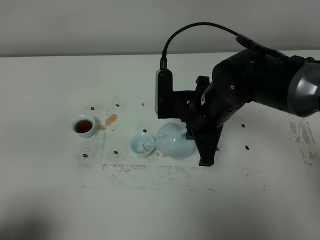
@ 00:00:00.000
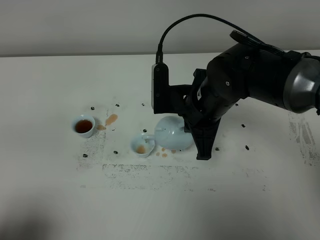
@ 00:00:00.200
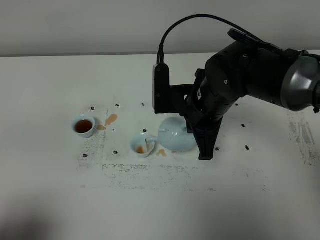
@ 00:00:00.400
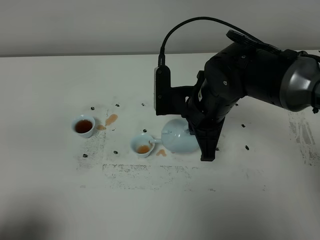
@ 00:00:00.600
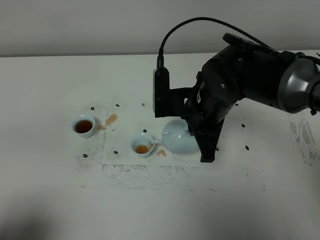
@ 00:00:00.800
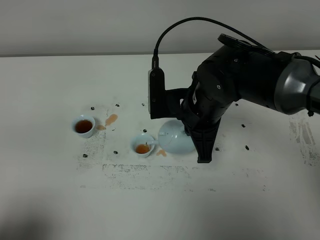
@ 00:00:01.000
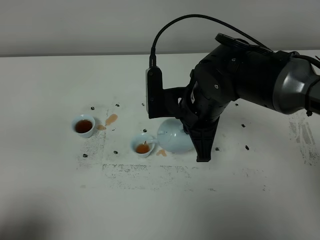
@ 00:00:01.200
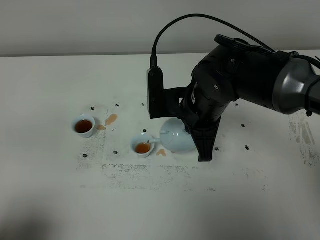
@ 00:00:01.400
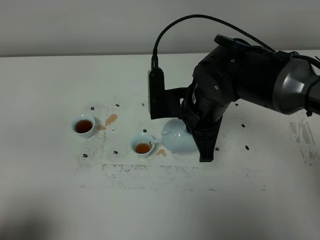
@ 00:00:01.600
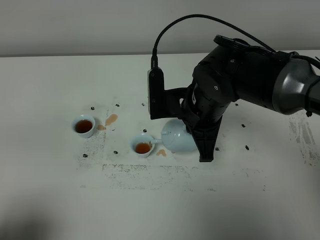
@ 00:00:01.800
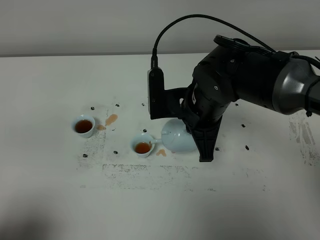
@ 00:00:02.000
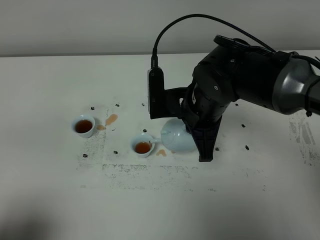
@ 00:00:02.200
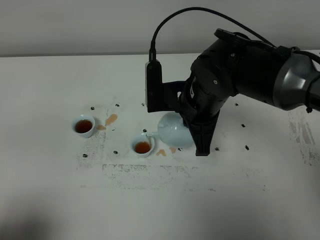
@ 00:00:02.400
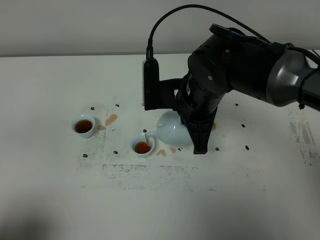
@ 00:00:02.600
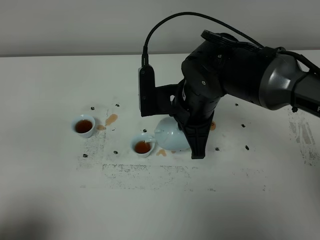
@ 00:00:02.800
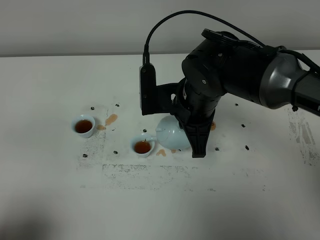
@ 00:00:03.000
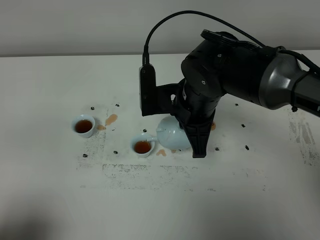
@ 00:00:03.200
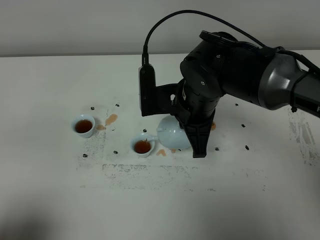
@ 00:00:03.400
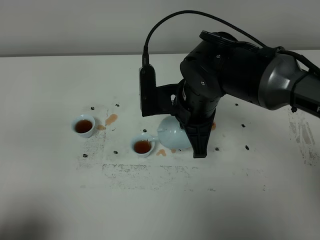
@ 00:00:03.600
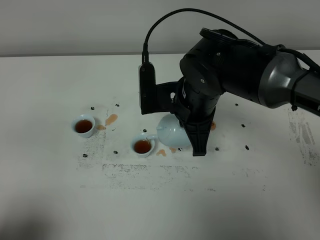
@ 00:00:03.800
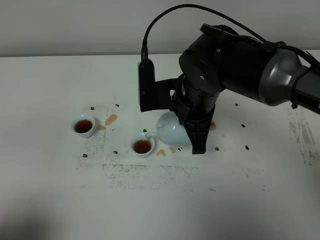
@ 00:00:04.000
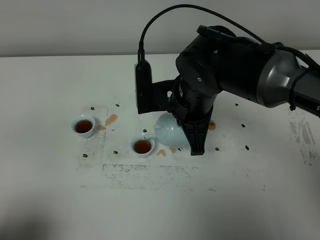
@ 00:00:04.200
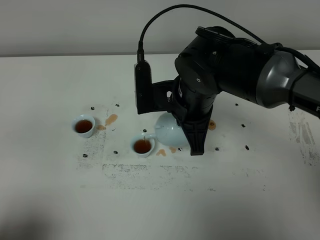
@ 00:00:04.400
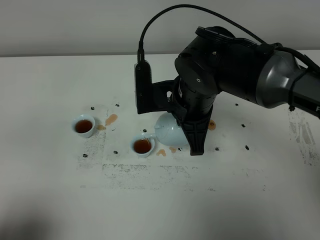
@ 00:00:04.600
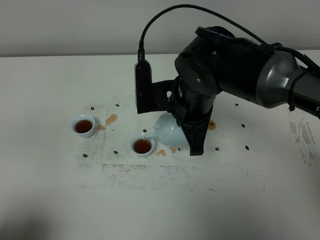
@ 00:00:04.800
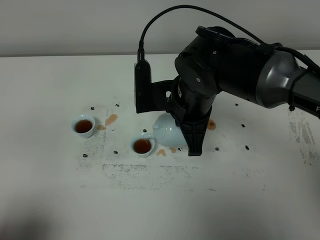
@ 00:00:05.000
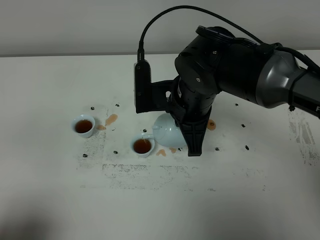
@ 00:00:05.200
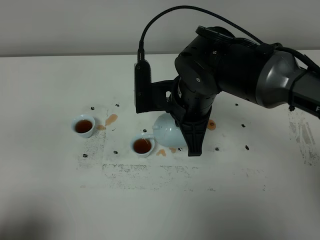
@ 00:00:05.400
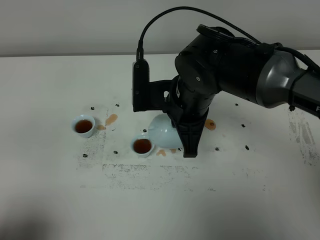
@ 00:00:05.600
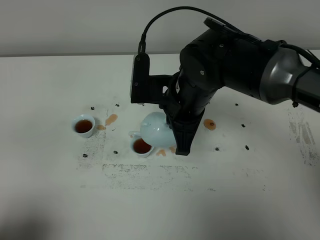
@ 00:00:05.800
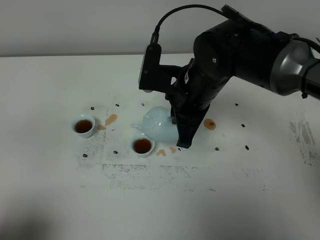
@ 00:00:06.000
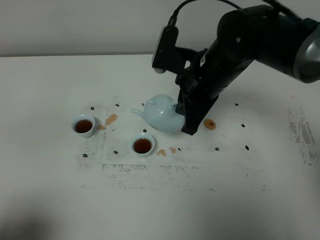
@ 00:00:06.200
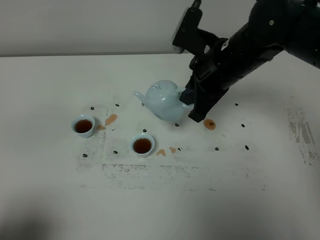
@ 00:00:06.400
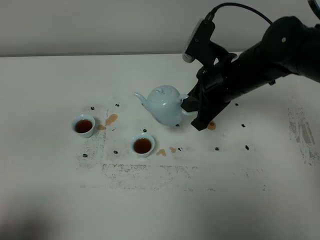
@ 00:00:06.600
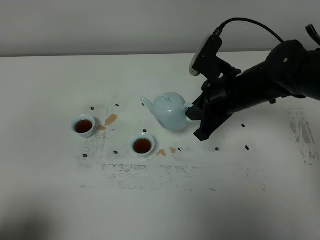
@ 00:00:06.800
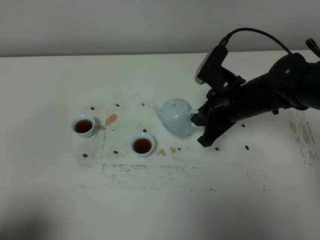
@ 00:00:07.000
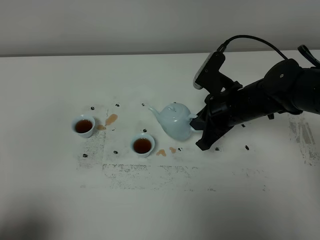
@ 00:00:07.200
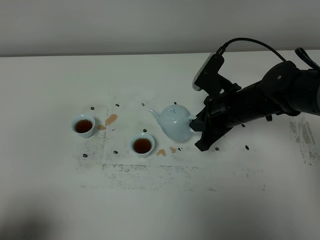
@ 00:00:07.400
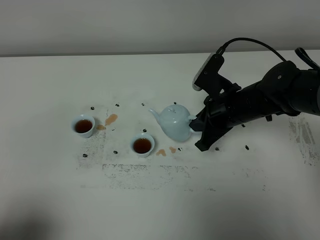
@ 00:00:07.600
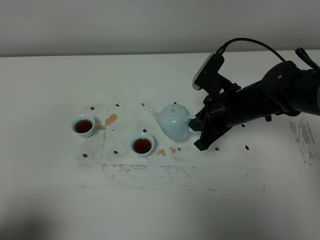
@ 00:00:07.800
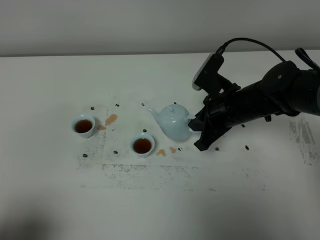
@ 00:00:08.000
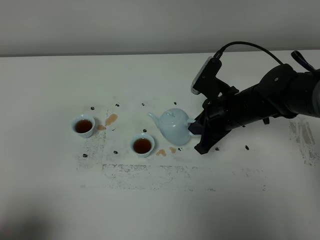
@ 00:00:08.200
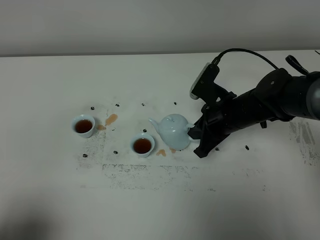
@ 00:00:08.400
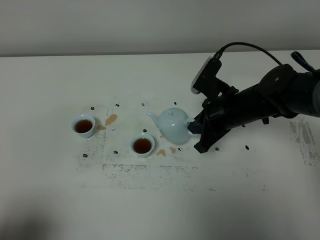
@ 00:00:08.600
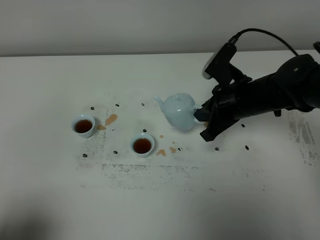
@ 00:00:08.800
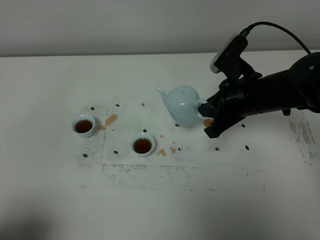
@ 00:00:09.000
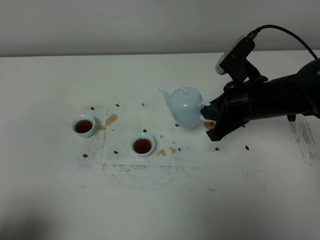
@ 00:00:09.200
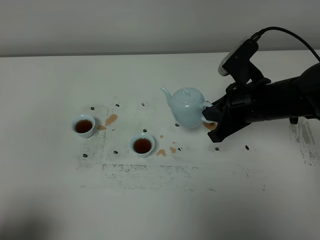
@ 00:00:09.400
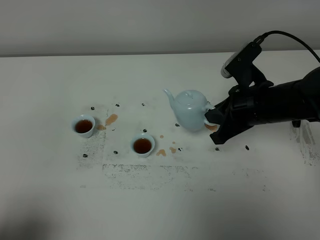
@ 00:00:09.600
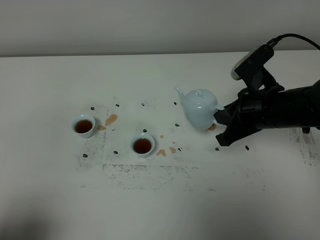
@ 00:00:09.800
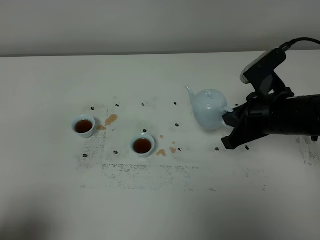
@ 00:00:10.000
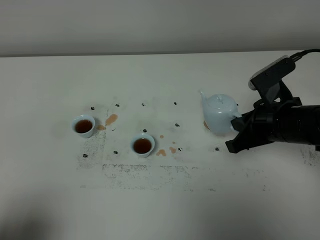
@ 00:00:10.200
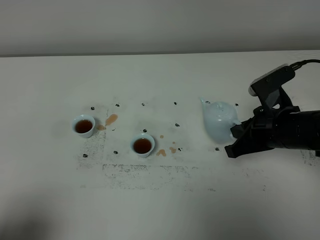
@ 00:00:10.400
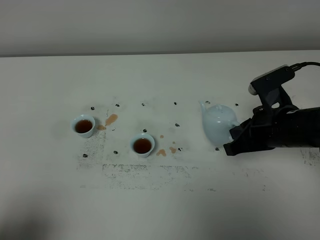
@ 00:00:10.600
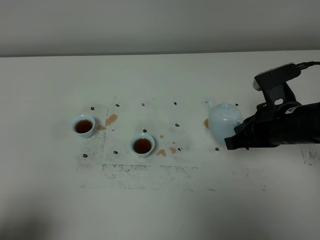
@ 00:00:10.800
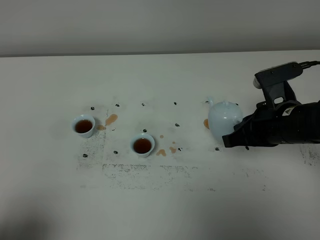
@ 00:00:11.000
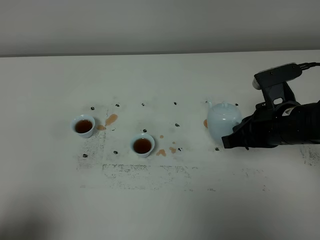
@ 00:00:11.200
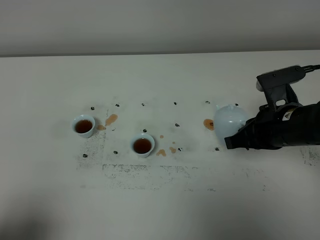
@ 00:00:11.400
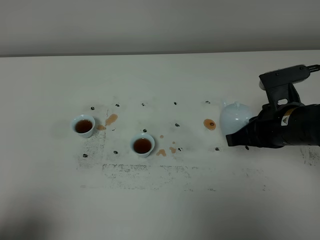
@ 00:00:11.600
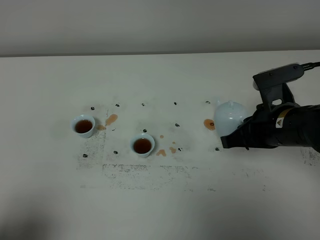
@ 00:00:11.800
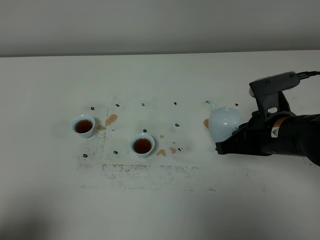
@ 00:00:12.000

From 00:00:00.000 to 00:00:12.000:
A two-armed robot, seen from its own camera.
Task of the whole recording: grasp the blue porcelain teapot and pour the tea into the two blue porcelain teacups one by one, put the blue porcelain teapot back in its original place.
Step, from 00:00:00.000 to 00:00:05.800: Pour tea into the teacup with the right gripper.
From 00:00:00.000 to 00:00:03.000: There are only small adjustments of the grippers.
From 00:00:03.000 to 00:00:04.400: Both grippers stay about where they are.
From 00:00:04.400 to 00:00:06.000: There are only small adjustments of the grippers.
From 00:00:06.000 to 00:00:07.600: The right gripper goes roughly 10 cm to the right and downward.
From 00:00:07.600 to 00:00:09.000: The grippers make only small movements.
From 00:00:09.000 to 00:00:10.400: The right gripper is displaced backward by about 5 cm.
From 00:00:10.400 to 00:00:12.000: The grippers stay close to where they were, moving slightly.

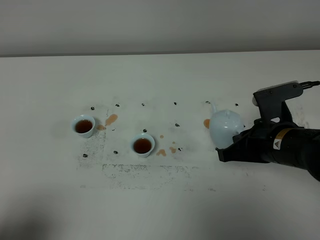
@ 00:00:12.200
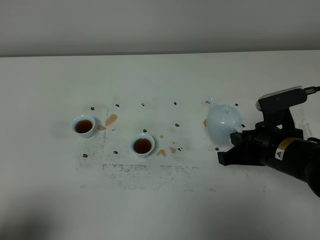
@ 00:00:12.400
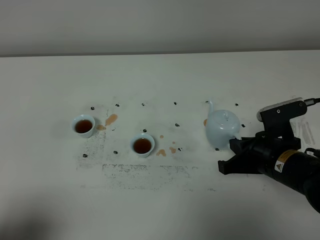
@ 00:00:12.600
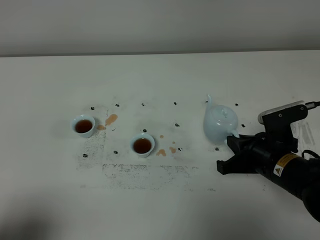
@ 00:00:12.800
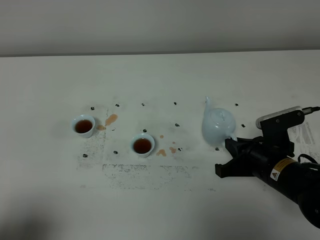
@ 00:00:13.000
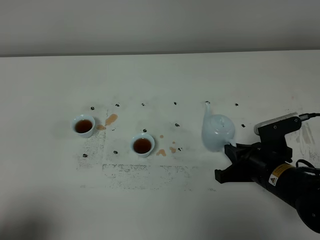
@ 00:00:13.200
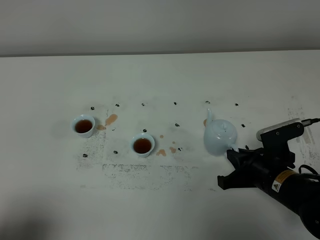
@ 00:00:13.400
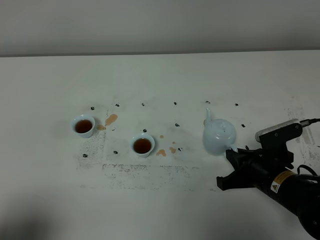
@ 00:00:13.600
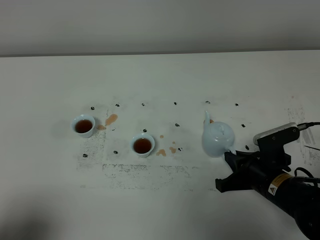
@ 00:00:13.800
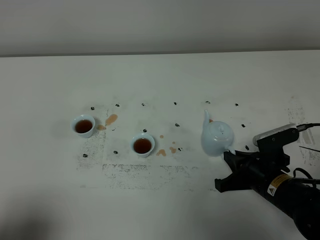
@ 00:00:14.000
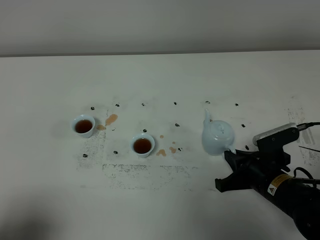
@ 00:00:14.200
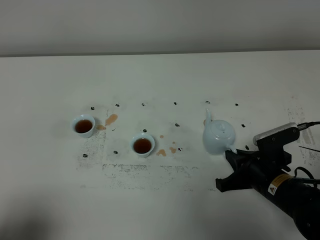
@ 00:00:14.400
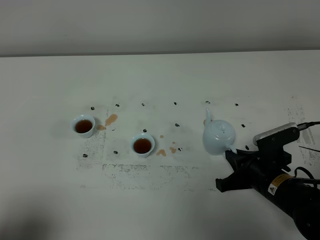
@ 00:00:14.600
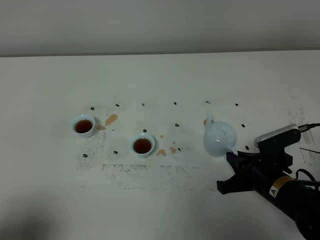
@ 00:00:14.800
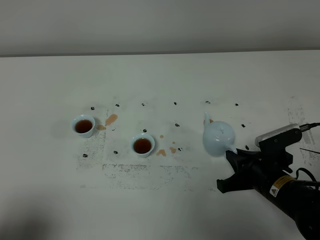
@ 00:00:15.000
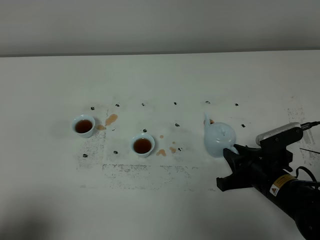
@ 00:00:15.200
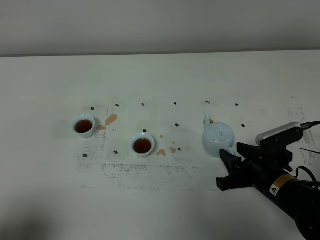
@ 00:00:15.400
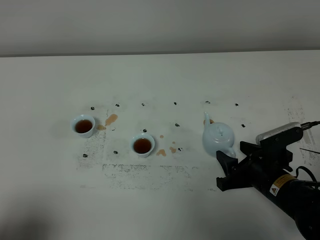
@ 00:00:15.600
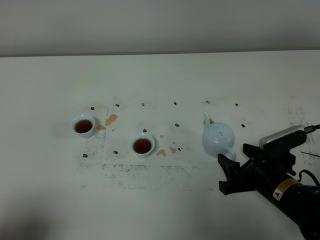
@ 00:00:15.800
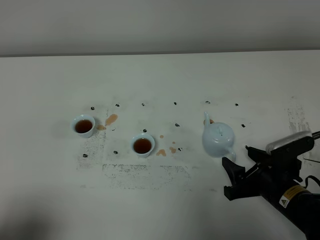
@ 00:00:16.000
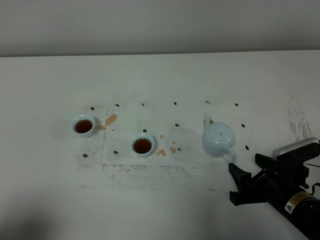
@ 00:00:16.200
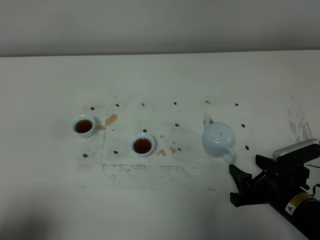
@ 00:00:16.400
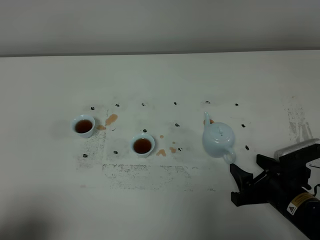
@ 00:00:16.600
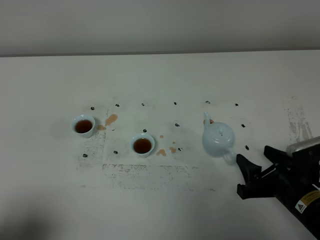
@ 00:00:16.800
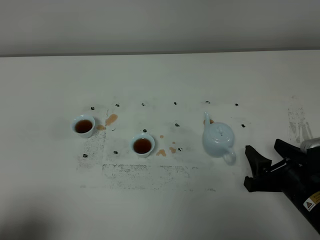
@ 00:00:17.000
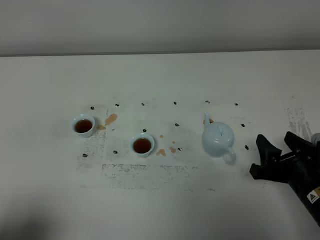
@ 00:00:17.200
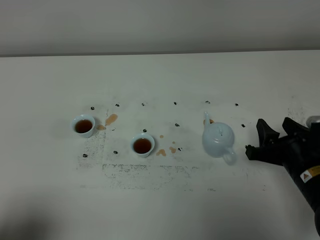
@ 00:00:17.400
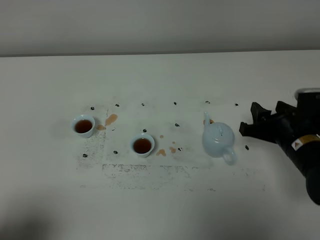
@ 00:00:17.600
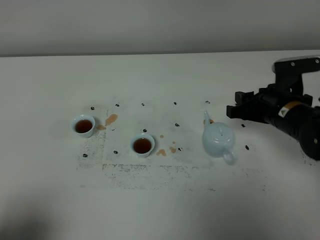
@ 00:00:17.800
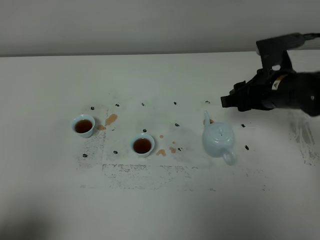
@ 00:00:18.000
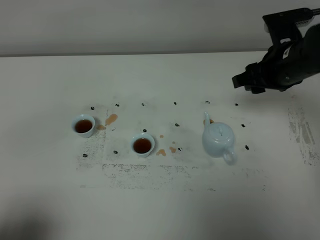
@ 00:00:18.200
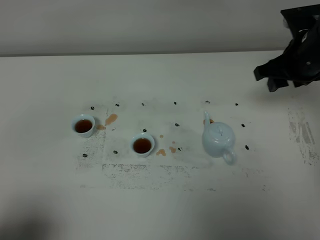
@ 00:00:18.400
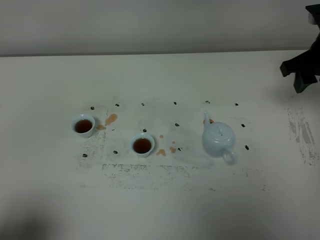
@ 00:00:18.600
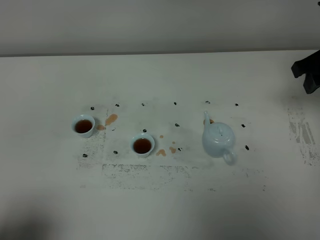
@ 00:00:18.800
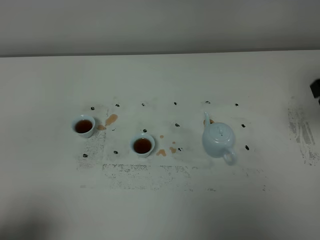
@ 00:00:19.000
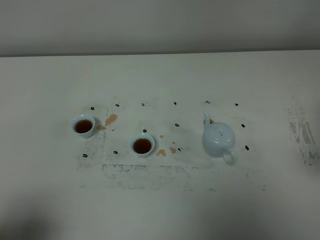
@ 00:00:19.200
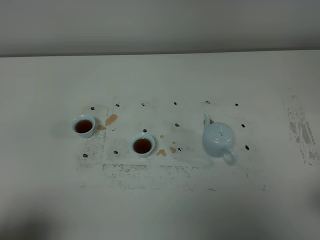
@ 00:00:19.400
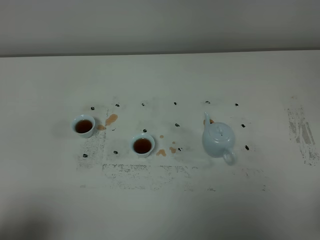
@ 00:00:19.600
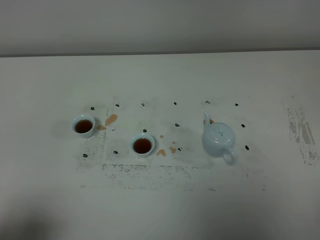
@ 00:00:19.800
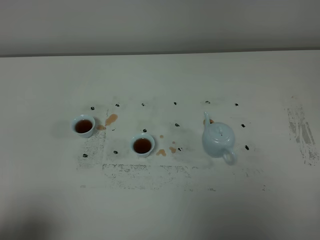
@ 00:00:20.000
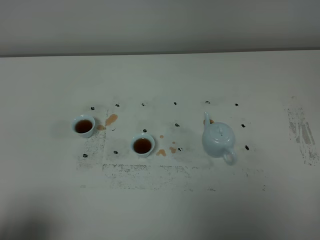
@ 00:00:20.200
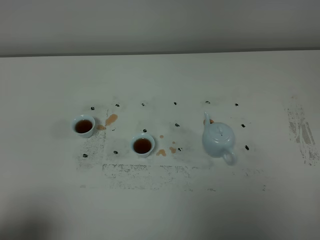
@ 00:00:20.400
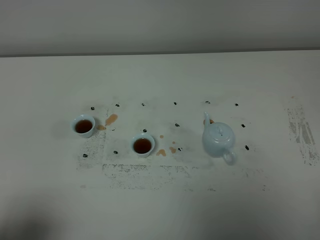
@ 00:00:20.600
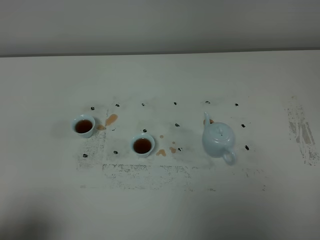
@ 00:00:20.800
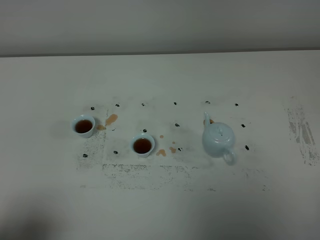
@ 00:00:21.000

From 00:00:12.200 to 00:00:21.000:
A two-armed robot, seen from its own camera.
Task of the whole recording: grasp the blue porcelain teapot and pour the tea into the two blue porcelain teacups one by one, put the blue porcelain teapot back in its original place.
From 00:00:12.200 to 00:00:13.600: The right gripper is displaced downward by about 10 cm.
From 00:00:13.600 to 00:00:15.200: The right gripper opens up.
From 00:00:15.200 to 00:00:16.600: The right gripper opens up.
From 00:00:16.600 to 00:00:18.000: The right gripper shifts roughly 20 cm forward and upward.
From 00:00:18.000 to 00:00:19.600: The right gripper travels backward by about 30 cm.
